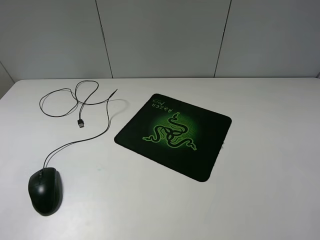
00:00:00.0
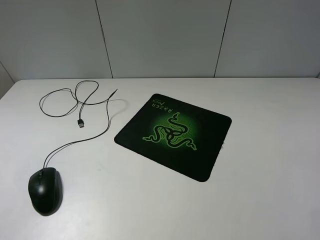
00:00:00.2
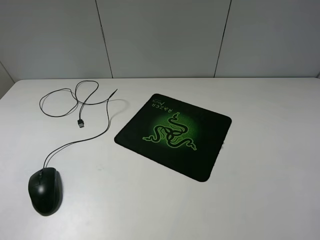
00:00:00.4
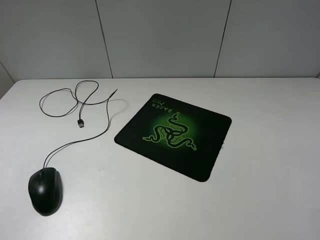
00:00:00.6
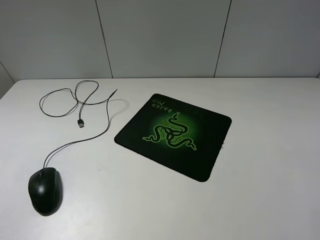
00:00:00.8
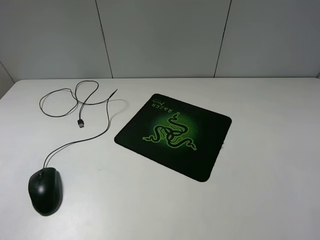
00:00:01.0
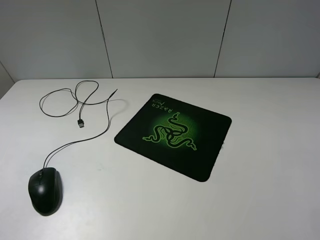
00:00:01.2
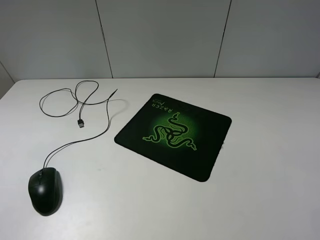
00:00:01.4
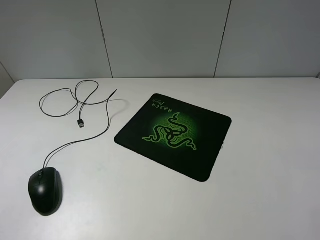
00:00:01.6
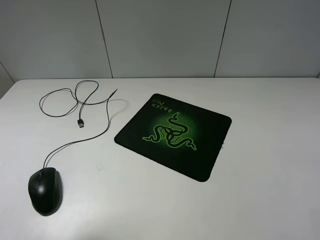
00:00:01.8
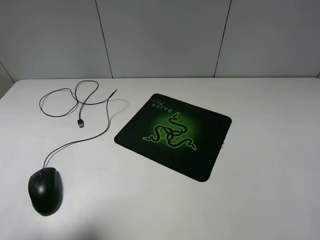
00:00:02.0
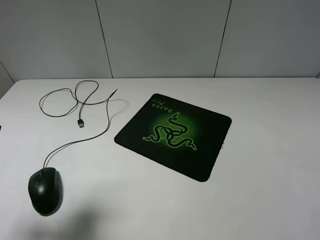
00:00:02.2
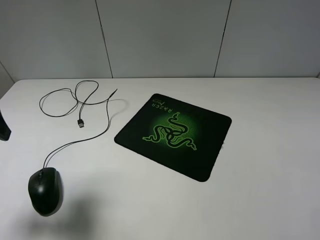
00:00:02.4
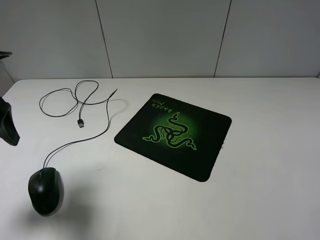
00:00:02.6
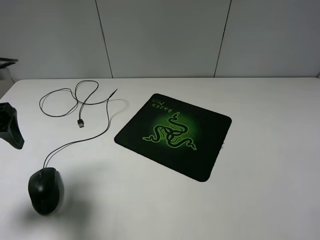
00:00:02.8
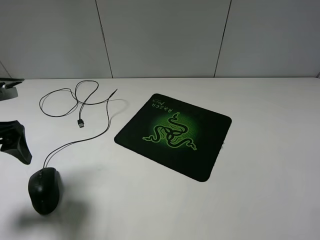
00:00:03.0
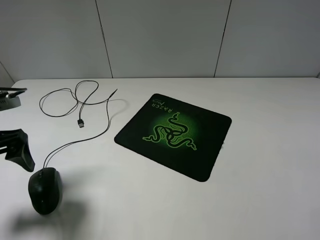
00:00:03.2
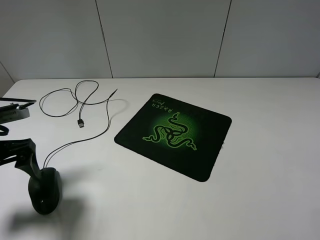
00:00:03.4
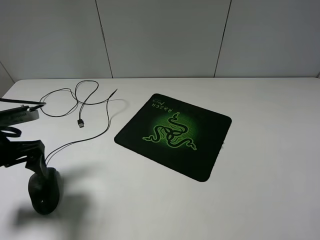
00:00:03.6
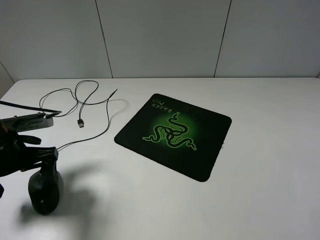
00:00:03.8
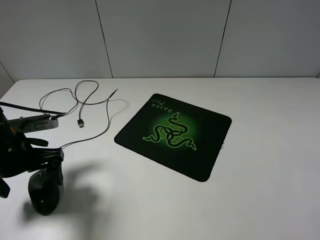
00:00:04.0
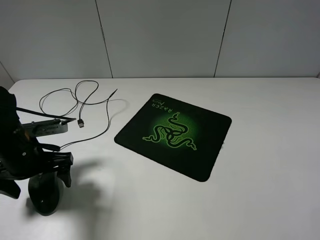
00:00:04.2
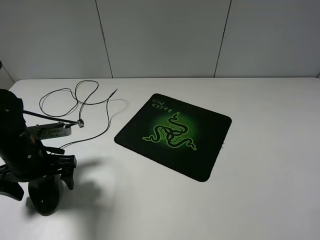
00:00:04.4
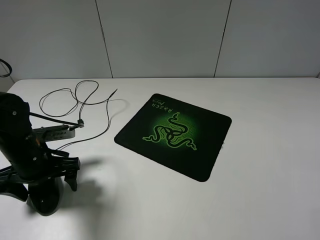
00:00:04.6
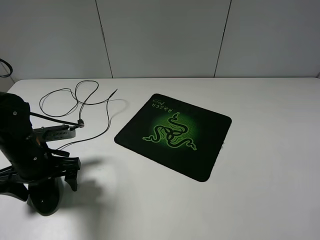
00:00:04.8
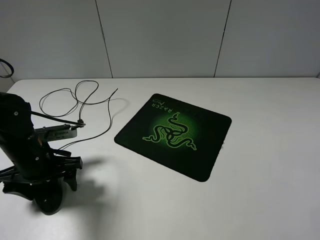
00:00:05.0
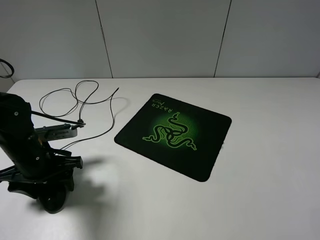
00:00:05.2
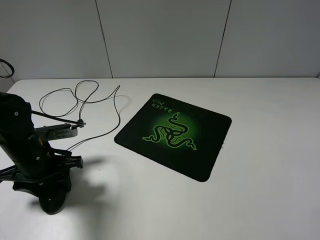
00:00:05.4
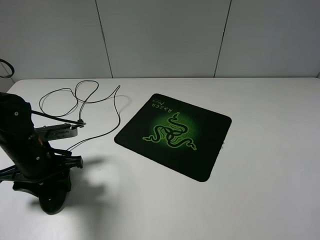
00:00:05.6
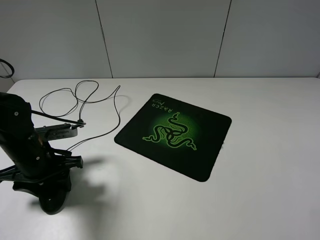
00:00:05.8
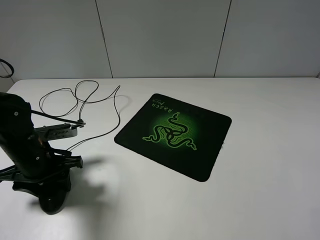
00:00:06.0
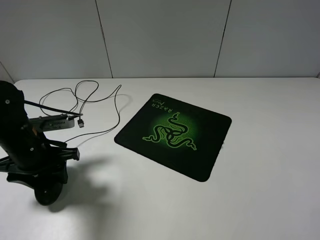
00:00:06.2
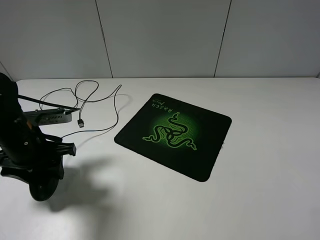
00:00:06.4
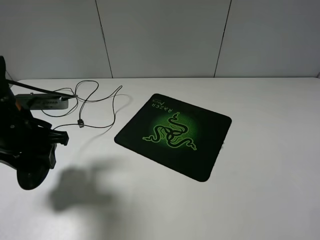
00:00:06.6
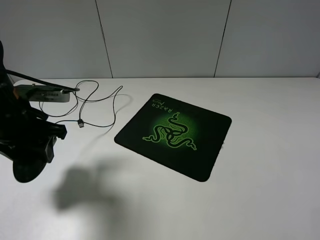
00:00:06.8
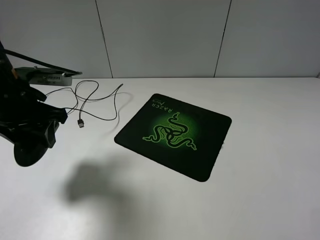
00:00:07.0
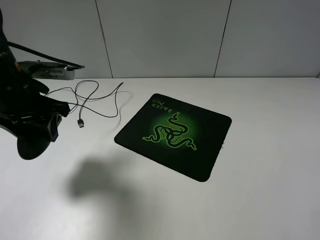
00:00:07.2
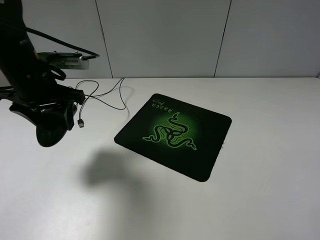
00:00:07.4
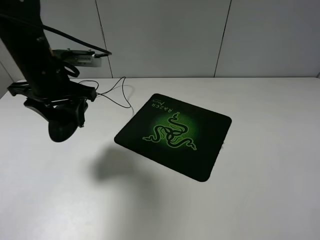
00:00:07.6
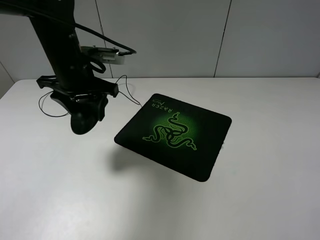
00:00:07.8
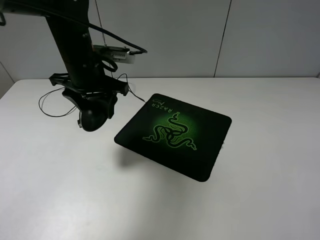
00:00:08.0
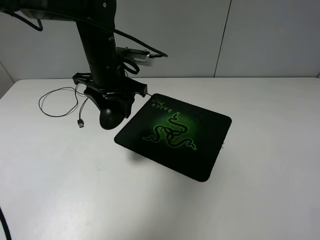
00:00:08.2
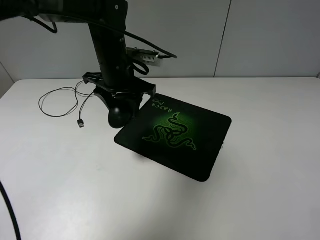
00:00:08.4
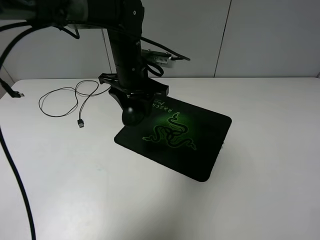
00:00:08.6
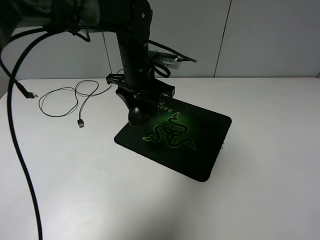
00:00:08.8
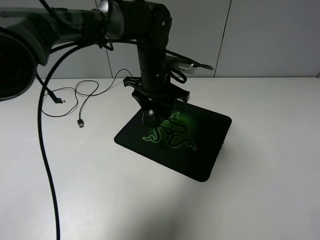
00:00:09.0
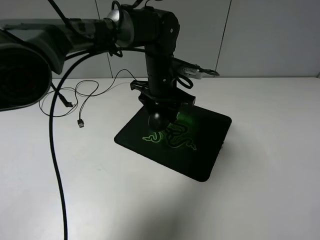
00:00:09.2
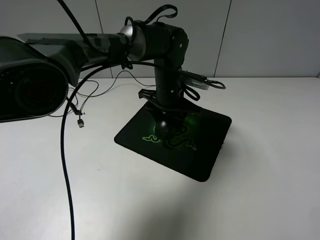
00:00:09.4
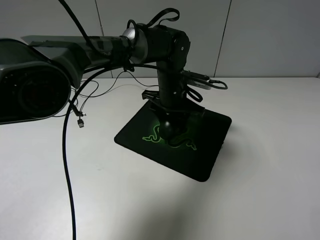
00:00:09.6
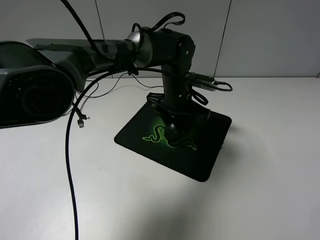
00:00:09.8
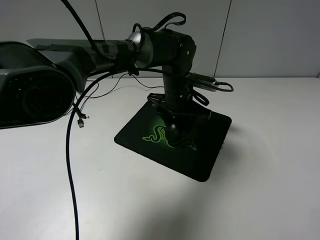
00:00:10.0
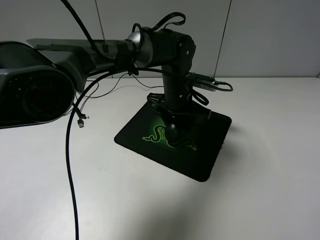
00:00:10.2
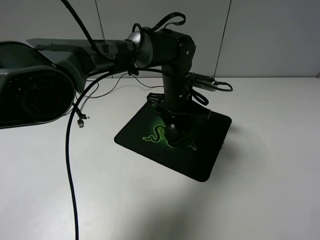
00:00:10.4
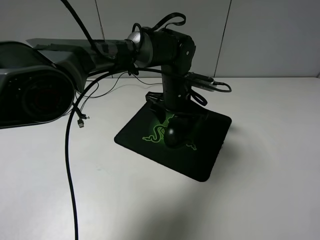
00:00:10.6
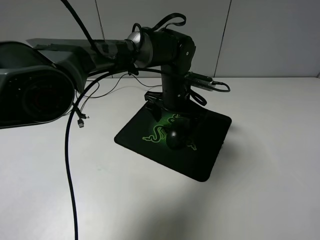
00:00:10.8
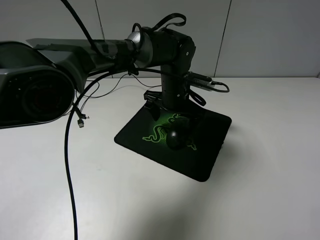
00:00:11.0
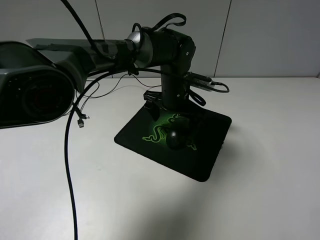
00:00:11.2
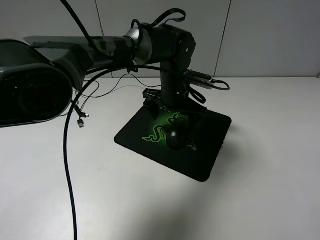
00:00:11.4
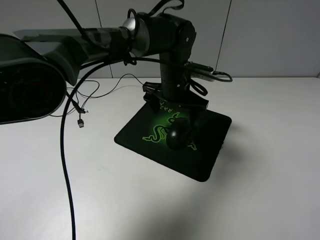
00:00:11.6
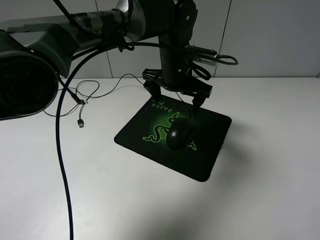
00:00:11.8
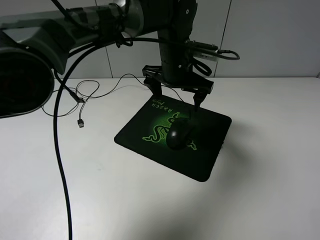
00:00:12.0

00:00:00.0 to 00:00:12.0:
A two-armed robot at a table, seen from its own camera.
Step, 00:00:00.0 to 00:00:05.8: Grasp the mouse with the left gripper.
Step, 00:00:06.0 to 00:00:11.0: Place the mouse on the mouse mat with the left gripper.
00:00:01.6 to 00:00:03.0: The left gripper moves downward and forward, approximately 20 cm.
00:00:03.0 to 00:00:04.4: The left gripper is displaced downward and to the right by about 10 cm.
00:00:04.4 to 00:00:06.0: The left gripper closes up.
00:00:06.0 to 00:00:07.6: The left gripper heads upward, forward and to the right, covering about 15 cm.
00:00:07.6 to 00:00:09.0: The left gripper moves to the right and forward, roughly 20 cm.
00:00:09.0 to 00:00:10.4: The left gripper shifts by some 5 cm.
00:00:10.4 to 00:00:12.0: The left gripper is displaced upward by some 10 cm, and opens.

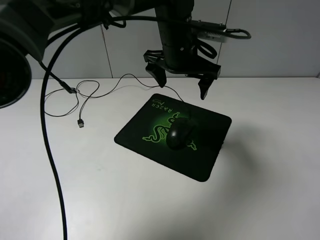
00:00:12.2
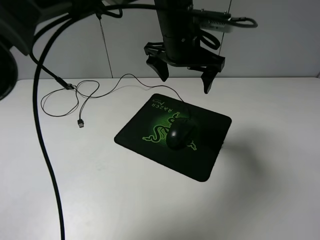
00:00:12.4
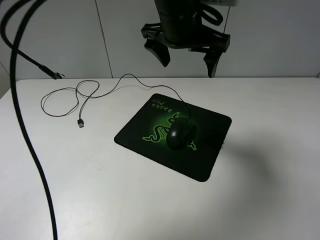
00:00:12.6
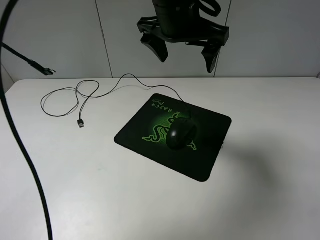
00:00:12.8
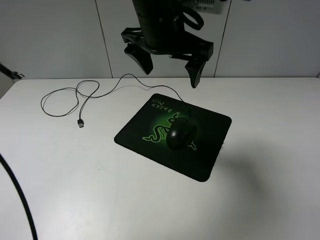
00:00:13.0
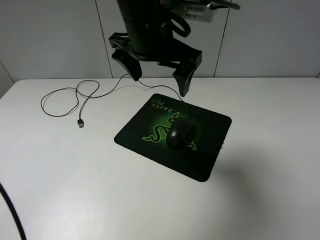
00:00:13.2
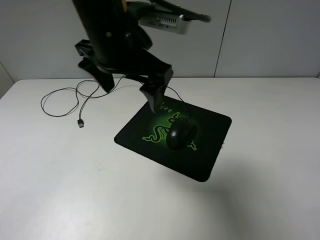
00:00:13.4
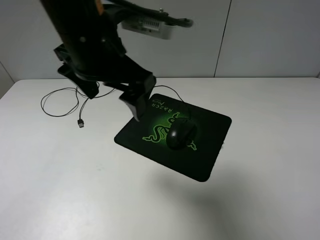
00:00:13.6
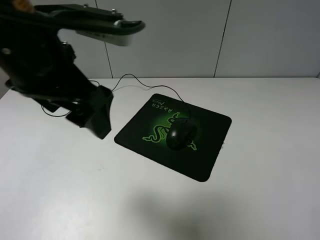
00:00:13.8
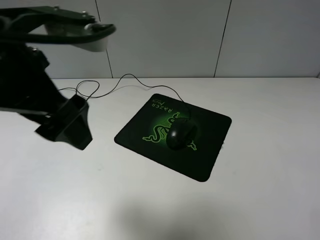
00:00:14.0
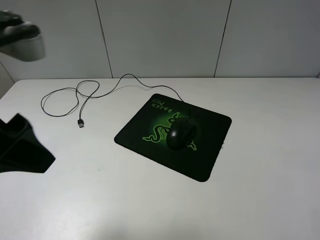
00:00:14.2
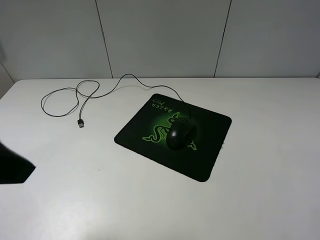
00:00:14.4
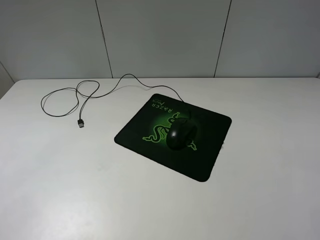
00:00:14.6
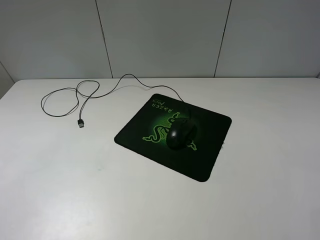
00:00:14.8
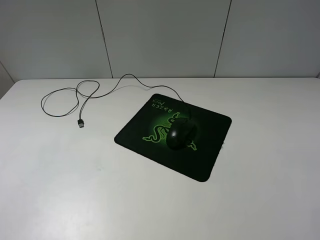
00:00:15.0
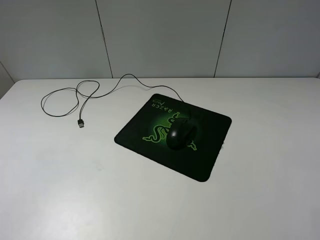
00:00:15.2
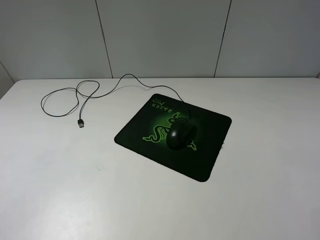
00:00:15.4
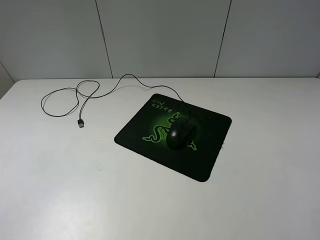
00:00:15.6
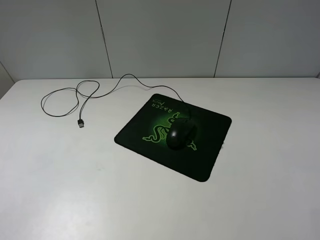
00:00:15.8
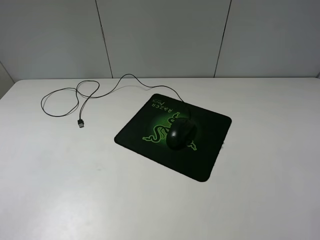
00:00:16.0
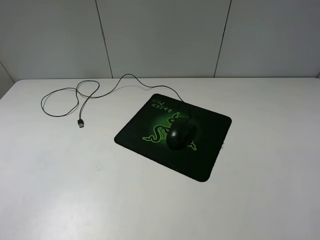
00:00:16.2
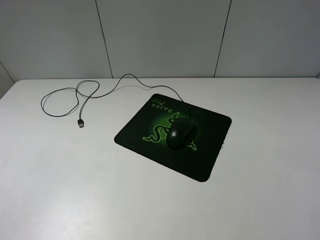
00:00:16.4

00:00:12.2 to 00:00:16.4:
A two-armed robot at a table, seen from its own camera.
00:00:12.2 to 00:00:13.6: The left gripper shifts some 20 cm backward, to the left and upward.
00:00:13.6 to 00:00:15.0: The left gripper travels to the left and backward by about 30 cm.
